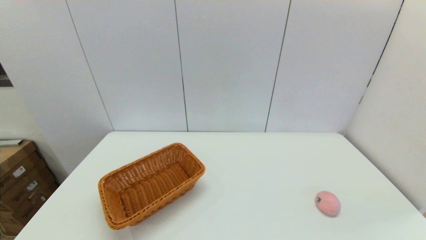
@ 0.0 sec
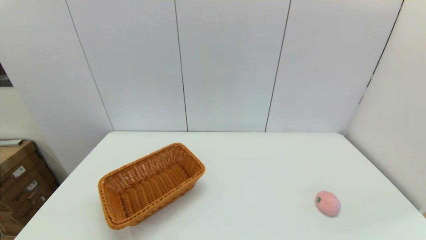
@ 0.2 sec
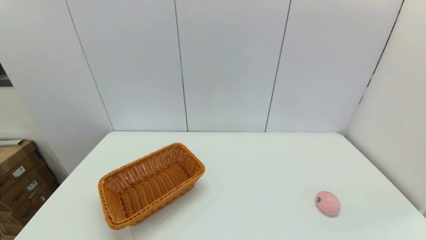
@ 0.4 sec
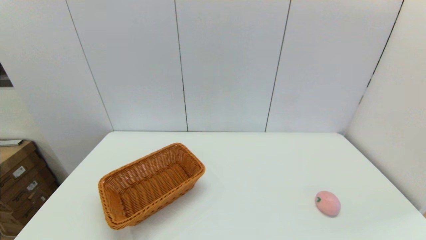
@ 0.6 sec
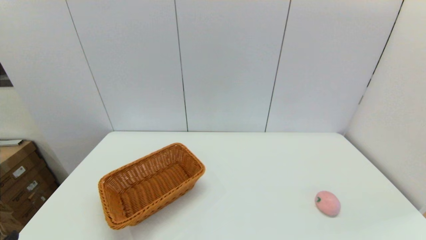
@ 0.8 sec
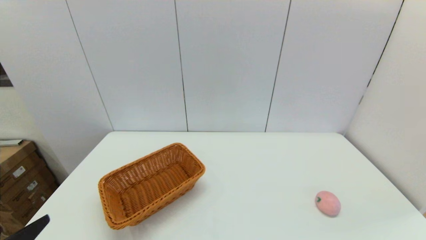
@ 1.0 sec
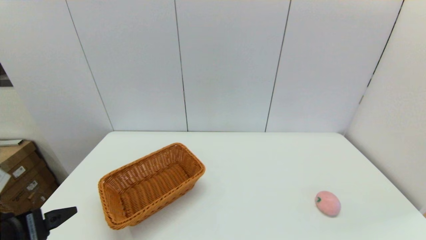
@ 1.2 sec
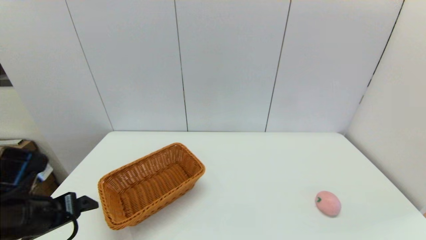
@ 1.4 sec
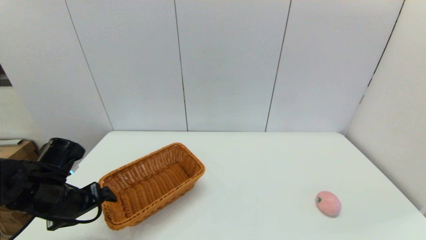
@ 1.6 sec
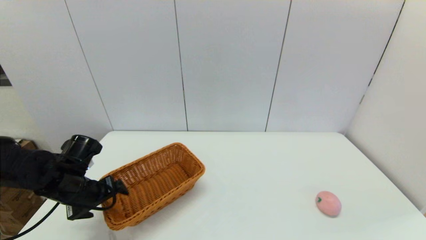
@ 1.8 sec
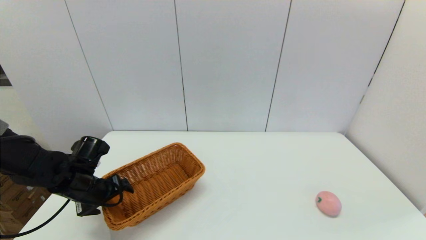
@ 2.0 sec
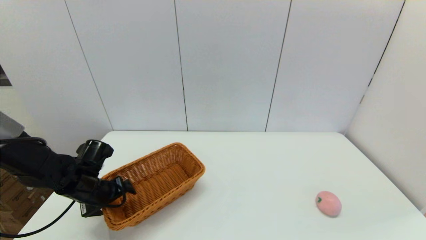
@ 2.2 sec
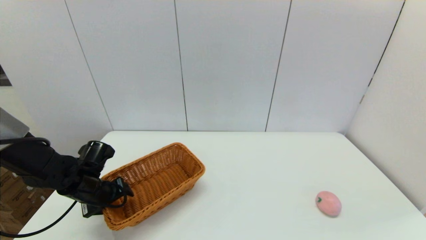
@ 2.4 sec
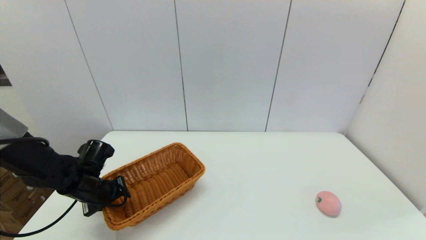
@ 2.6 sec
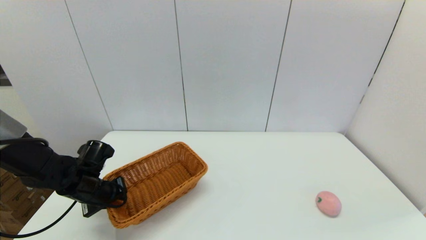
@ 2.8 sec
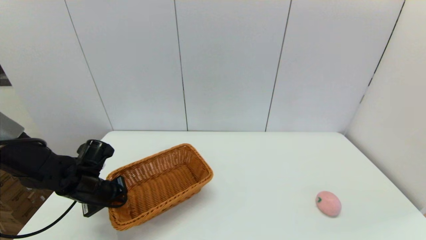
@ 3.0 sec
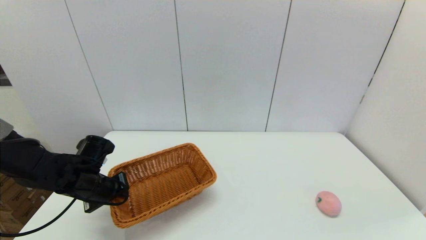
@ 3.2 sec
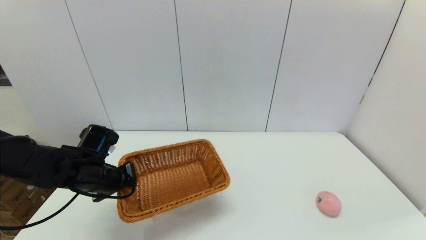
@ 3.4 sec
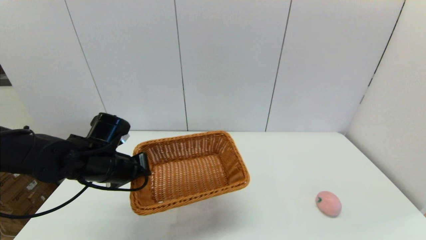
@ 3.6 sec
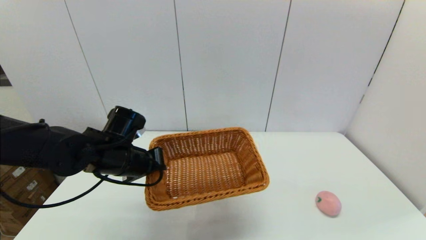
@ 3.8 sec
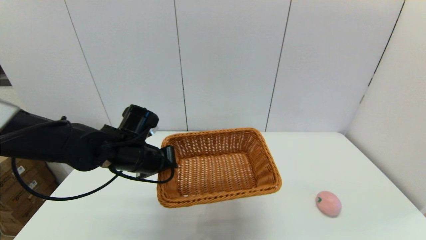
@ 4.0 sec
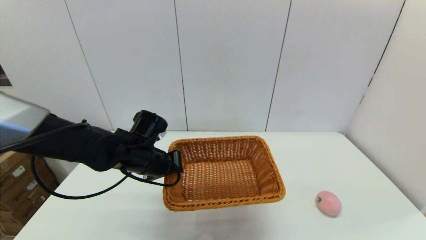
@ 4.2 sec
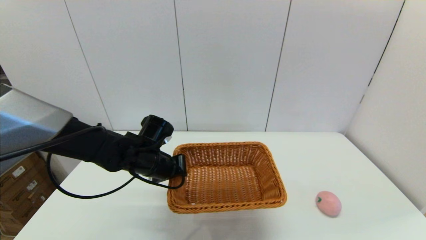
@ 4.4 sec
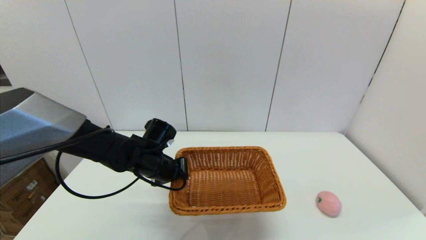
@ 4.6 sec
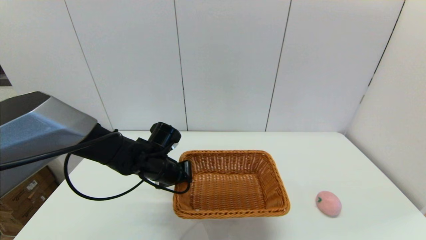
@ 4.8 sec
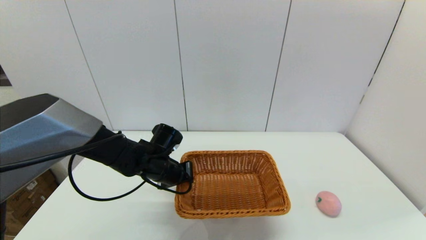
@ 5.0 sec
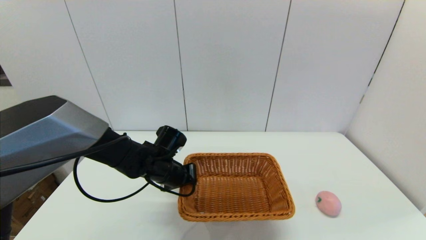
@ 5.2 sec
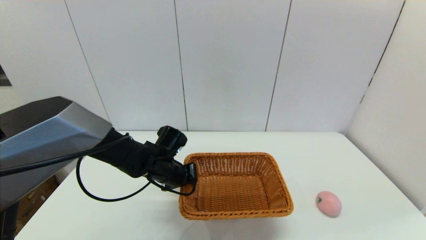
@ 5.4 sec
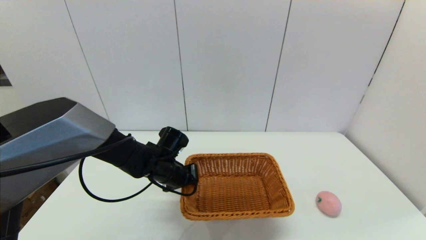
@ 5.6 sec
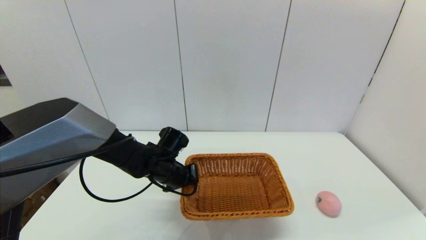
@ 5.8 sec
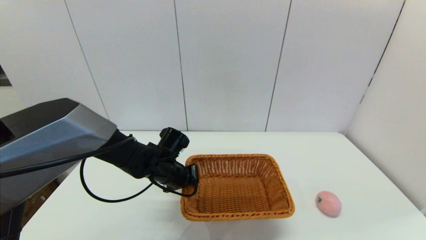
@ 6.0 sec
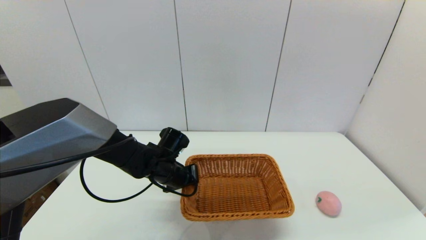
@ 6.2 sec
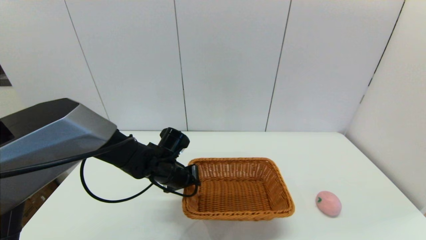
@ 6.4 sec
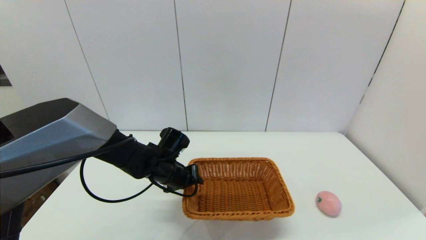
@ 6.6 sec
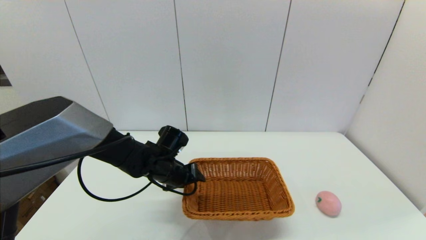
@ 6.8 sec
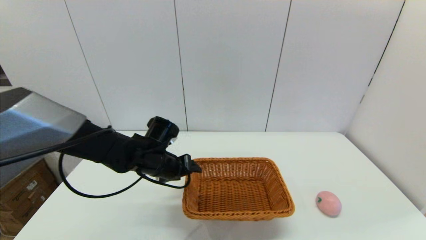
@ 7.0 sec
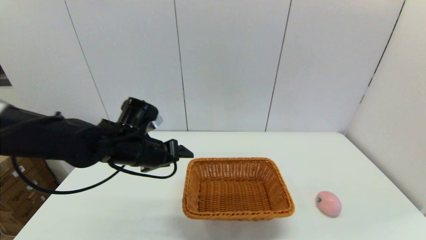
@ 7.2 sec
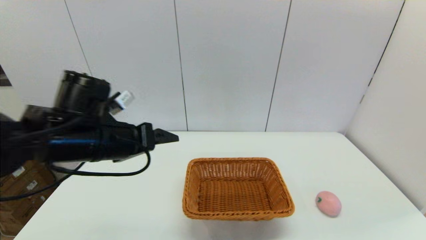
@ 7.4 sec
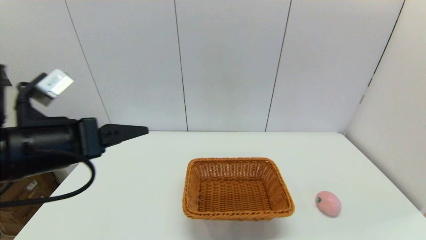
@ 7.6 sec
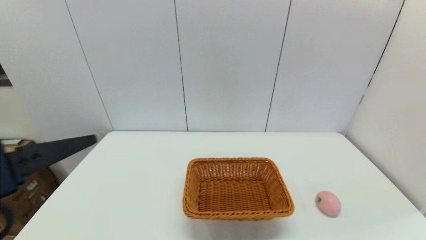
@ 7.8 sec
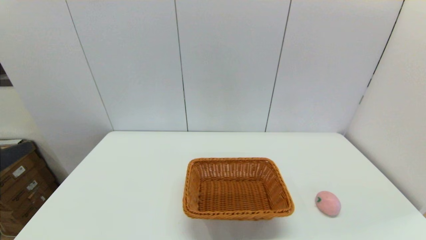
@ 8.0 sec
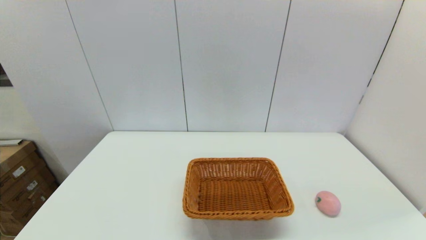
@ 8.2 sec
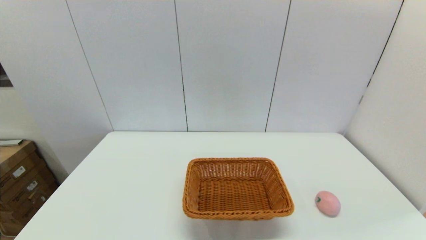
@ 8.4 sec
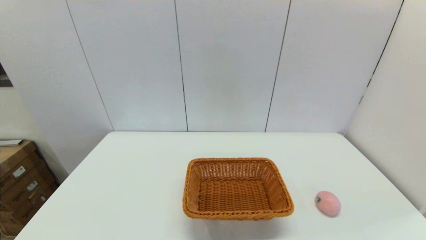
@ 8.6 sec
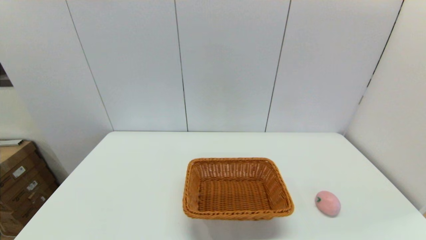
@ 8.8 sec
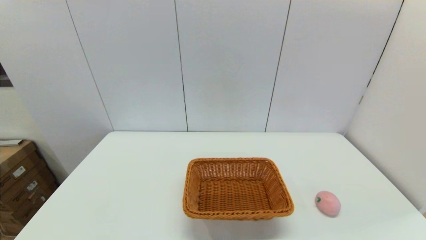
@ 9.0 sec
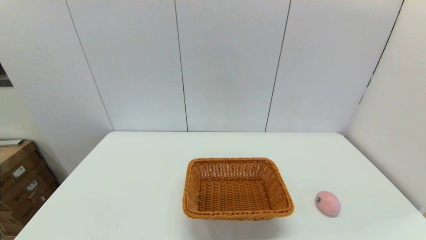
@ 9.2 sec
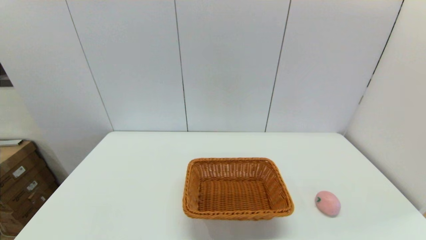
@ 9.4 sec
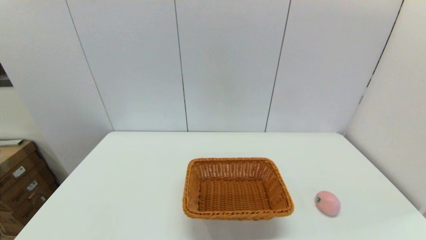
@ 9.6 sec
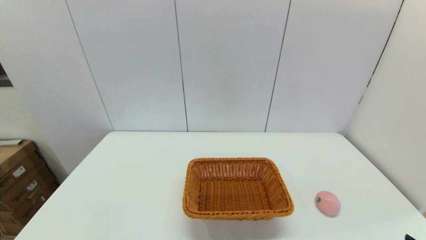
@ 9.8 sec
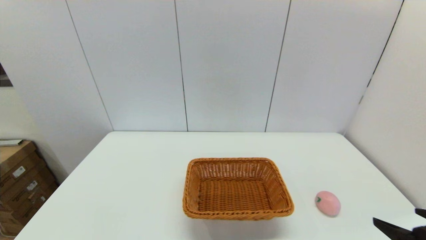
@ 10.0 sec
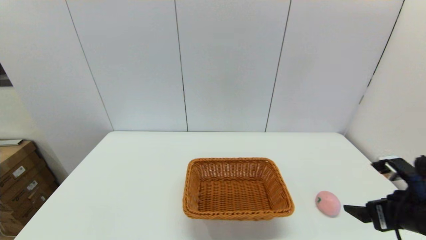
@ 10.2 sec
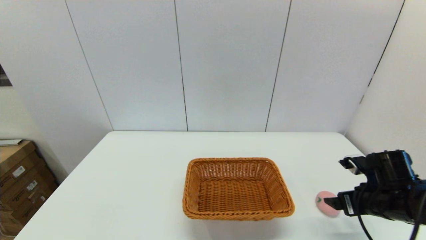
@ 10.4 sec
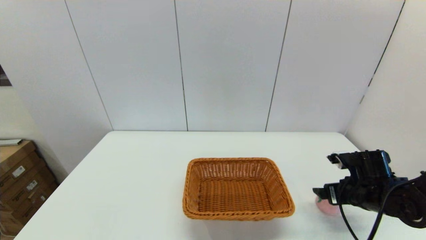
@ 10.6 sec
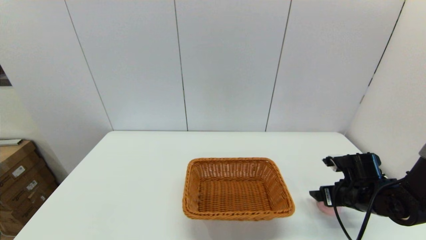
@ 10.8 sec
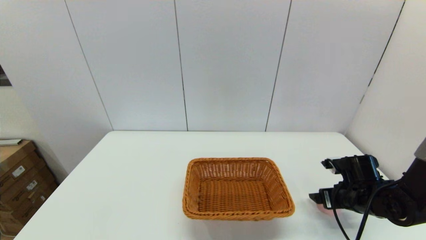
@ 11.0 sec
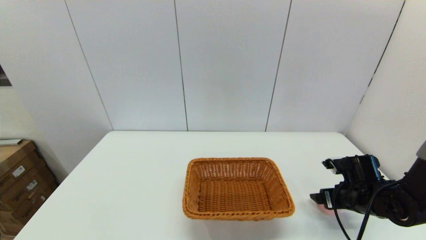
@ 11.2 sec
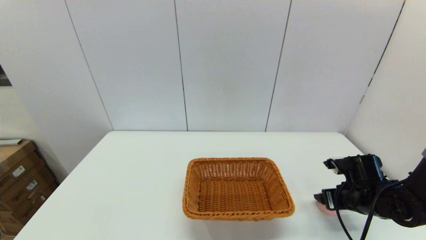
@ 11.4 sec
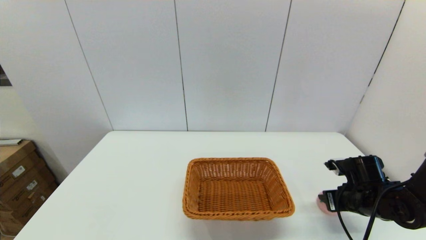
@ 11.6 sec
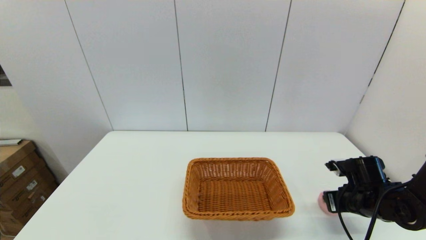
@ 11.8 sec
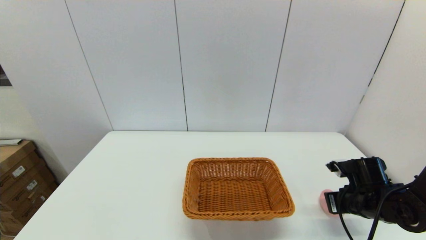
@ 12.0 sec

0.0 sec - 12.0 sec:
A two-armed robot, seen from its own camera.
Step, 0.0 sec - 3.0 sec: Grasp the light basket with the left gripper.
Step, 3.2 sec - 6.8 sec: Place the light basket on the middle of the table with the left gripper.
Step, 7.0 sec - 11.8 sec: Grasp the peach with the right gripper.
0.0 sec - 1.6 sec: The left gripper goes roughly 25 cm forward.
1.6 sec - 3.0 sec: The left gripper is displaced forward by approximately 5 cm, and closes its fingers.
3.0 sec - 4.4 sec: The left gripper moves to the right, roughly 15 cm.
4.4 sec - 6.0 sec: The left gripper changes place by about 5 cm.
6.0 sec - 7.6 sec: The left gripper heads upward, backward and to the left, covering roughly 30 cm, and opens.
7.6 sec - 9.0 sec: The left gripper moves backward, downward and to the left, approximately 25 cm.
9.0 sec - 10.4 sec: The right gripper goes roughly 25 cm forward.
10.4 sec - 12.0 sec: The right gripper closes its fingers.

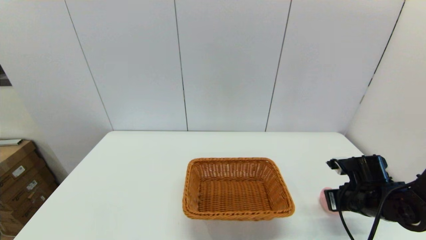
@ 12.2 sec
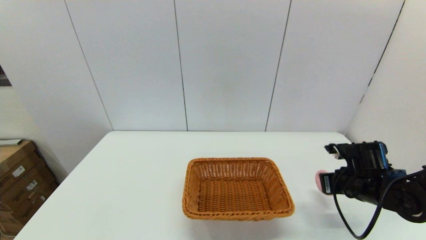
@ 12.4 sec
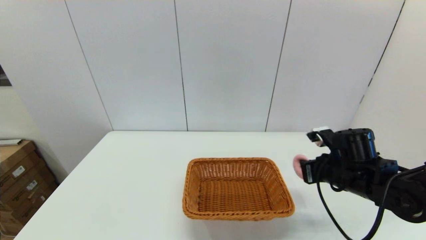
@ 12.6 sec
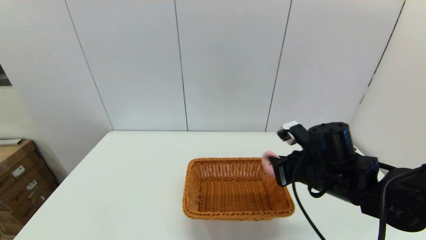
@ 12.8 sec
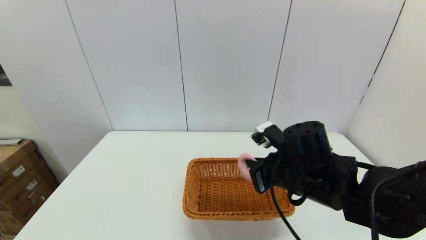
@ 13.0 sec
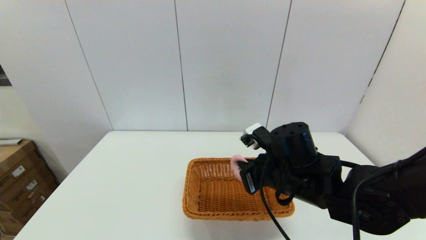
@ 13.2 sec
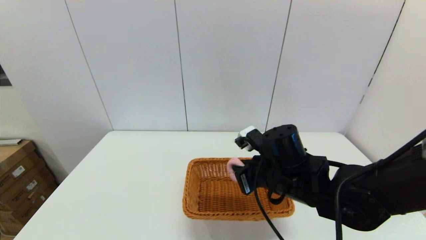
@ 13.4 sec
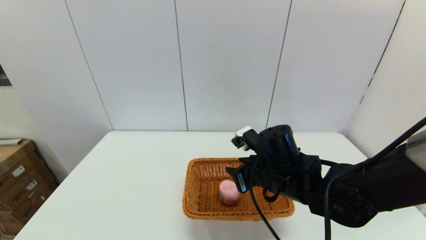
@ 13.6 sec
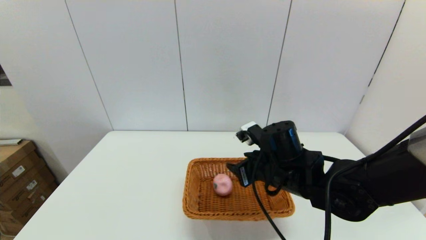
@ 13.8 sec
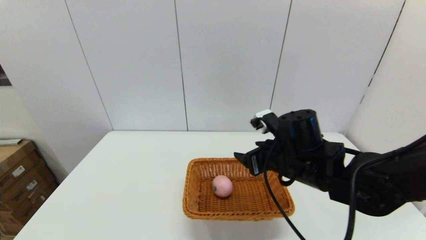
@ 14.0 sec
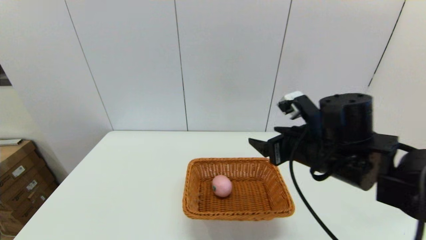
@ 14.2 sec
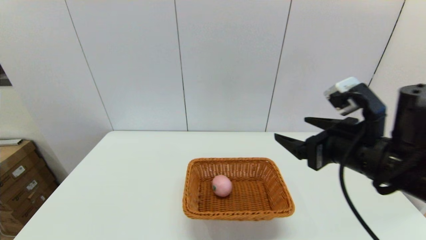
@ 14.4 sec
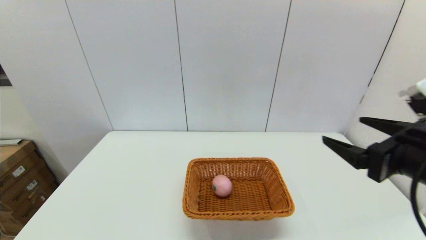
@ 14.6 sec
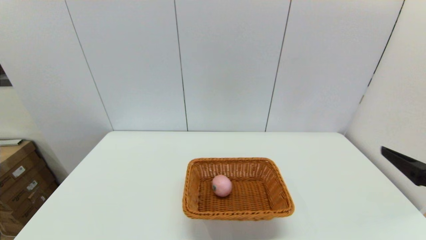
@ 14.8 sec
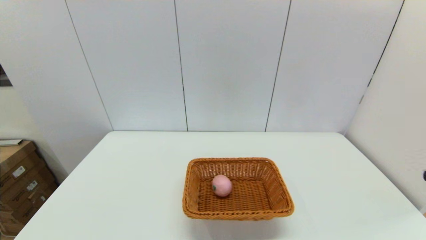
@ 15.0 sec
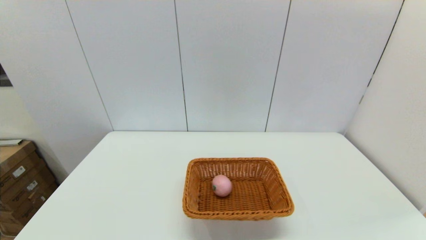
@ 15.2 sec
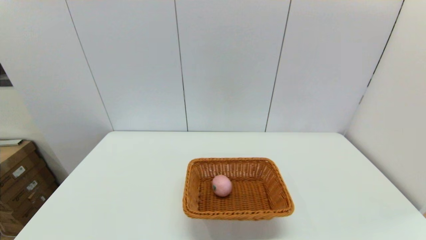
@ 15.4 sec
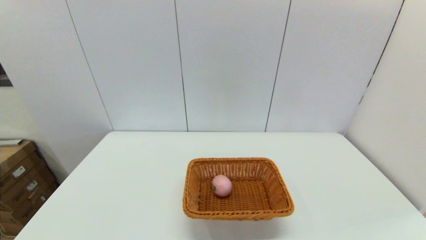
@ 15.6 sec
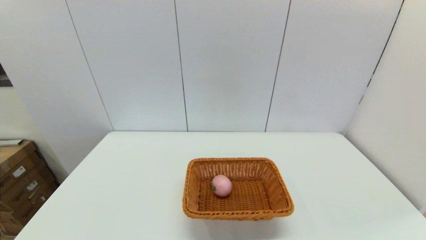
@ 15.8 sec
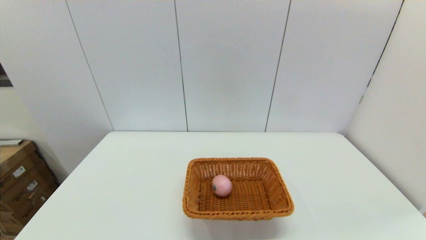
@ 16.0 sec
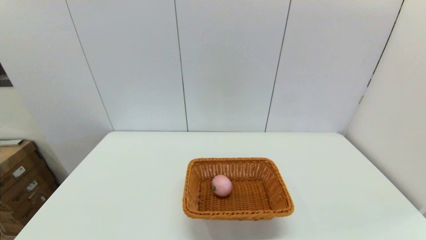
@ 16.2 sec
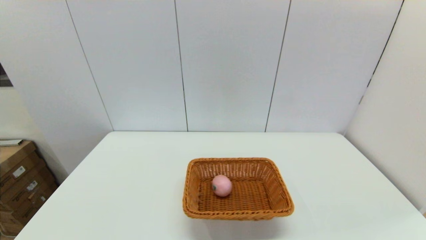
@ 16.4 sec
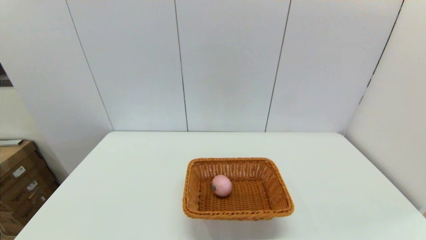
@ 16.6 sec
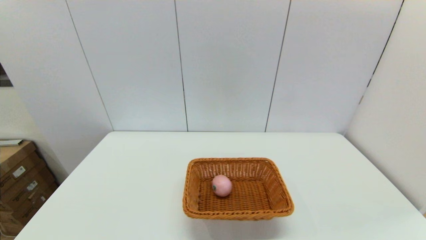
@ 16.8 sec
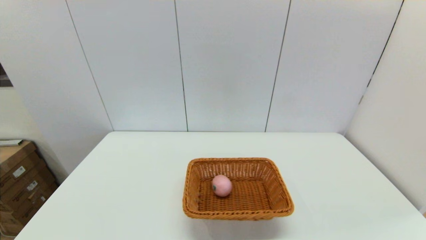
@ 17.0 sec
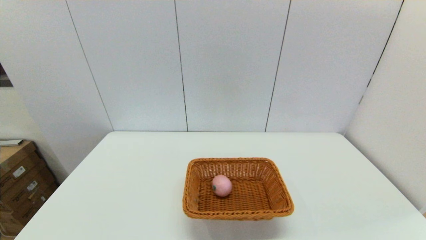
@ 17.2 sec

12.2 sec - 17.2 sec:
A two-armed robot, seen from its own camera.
Step, 12.2 sec - 13.8 sec: Place the peach into the light basket with the right gripper.
12.2 sec - 13.8 sec: The right gripper moves to the left and upward, some 25 cm, and opens.
13.8 sec - 15.6 sec: The right gripper goes about 35 cm backward and to the right, and opens its fingers.
